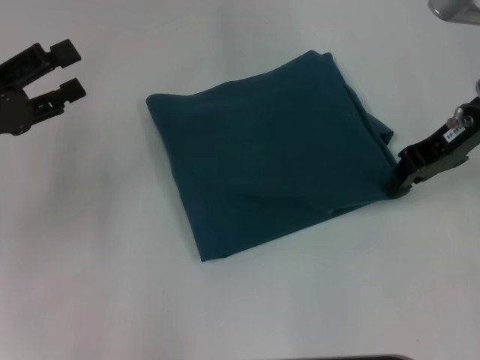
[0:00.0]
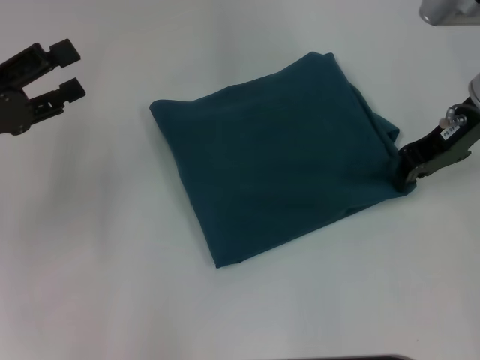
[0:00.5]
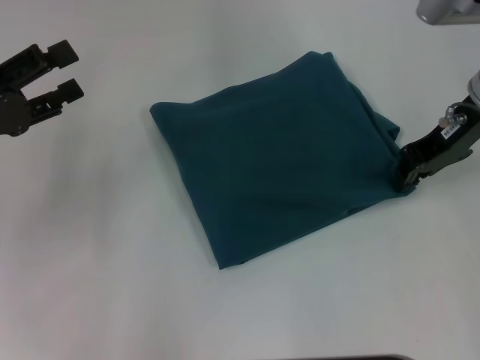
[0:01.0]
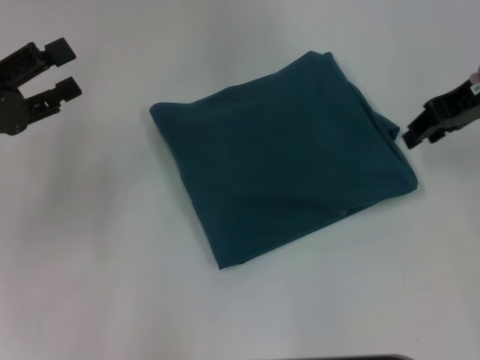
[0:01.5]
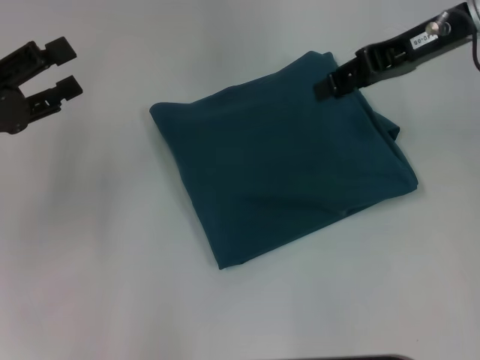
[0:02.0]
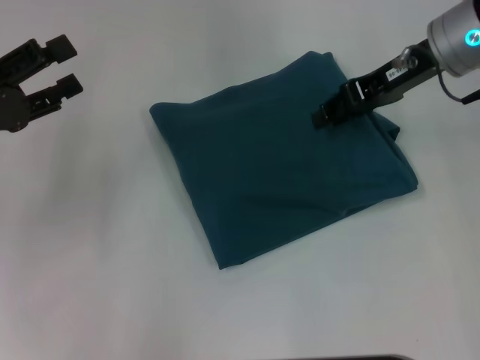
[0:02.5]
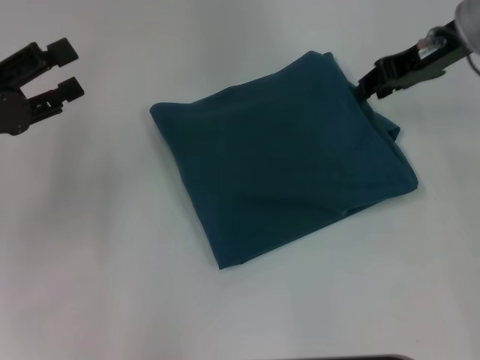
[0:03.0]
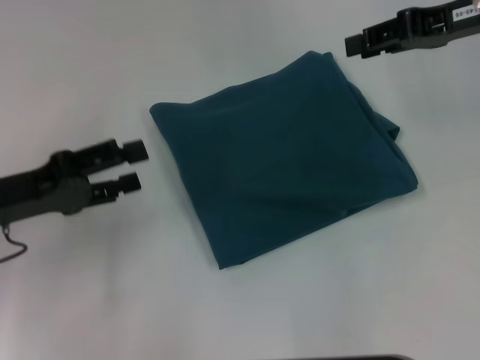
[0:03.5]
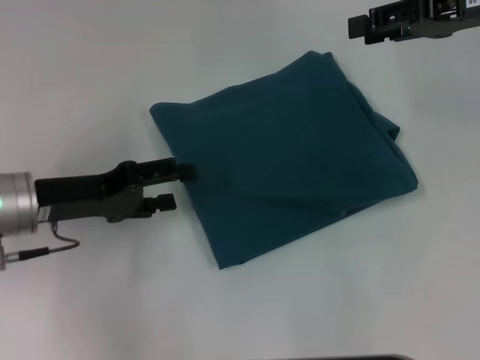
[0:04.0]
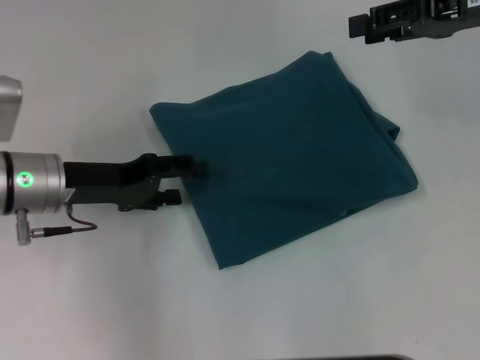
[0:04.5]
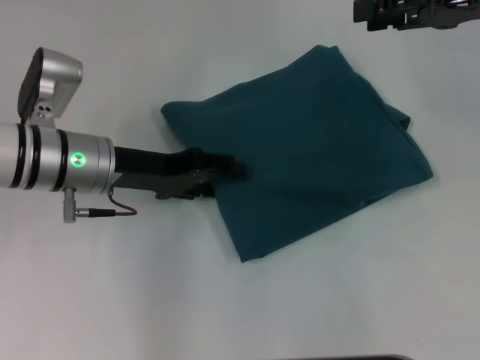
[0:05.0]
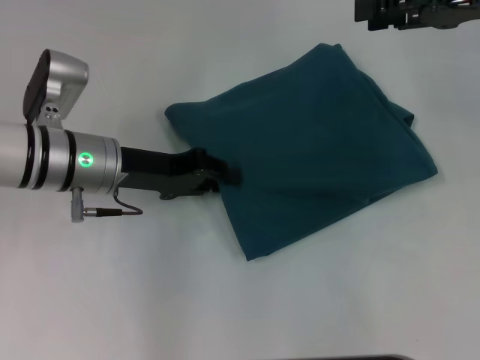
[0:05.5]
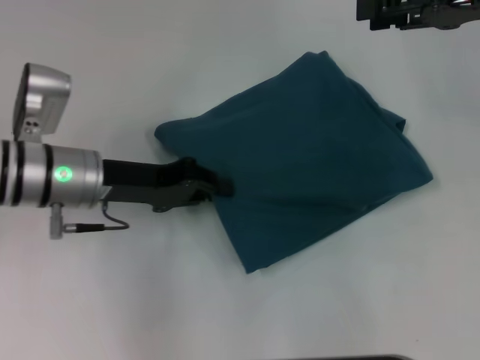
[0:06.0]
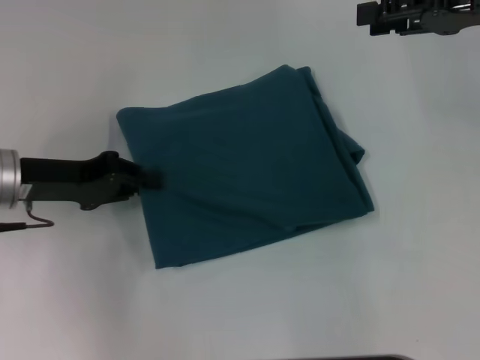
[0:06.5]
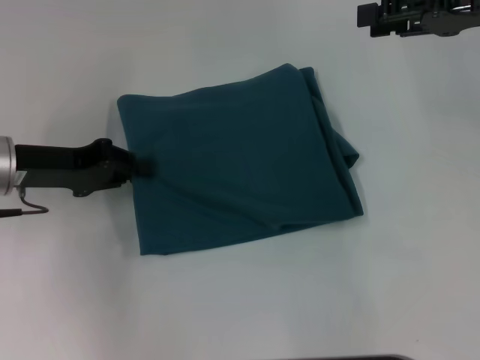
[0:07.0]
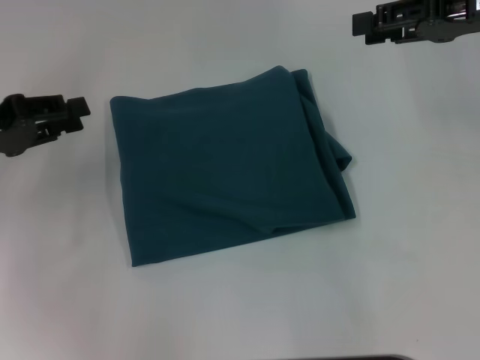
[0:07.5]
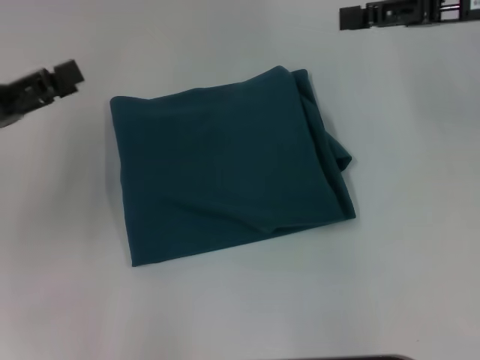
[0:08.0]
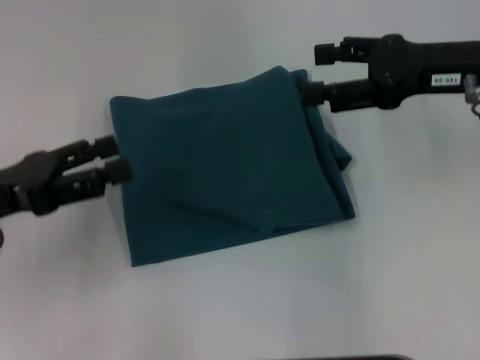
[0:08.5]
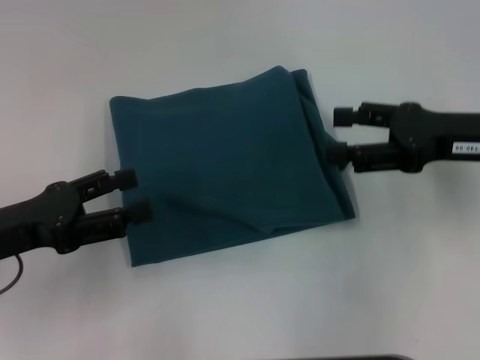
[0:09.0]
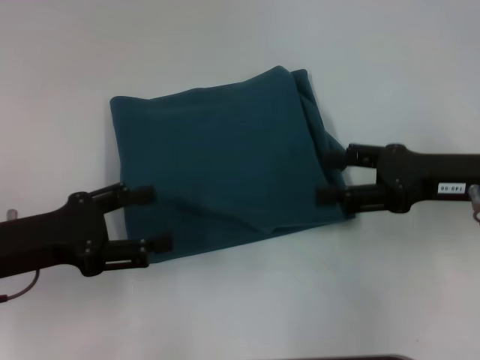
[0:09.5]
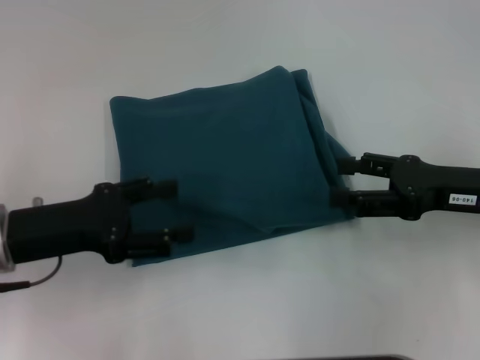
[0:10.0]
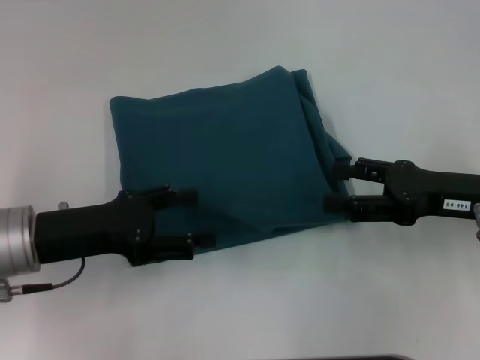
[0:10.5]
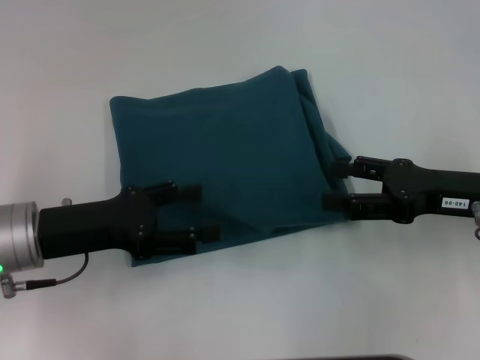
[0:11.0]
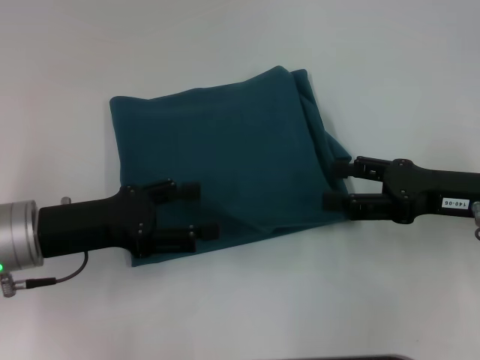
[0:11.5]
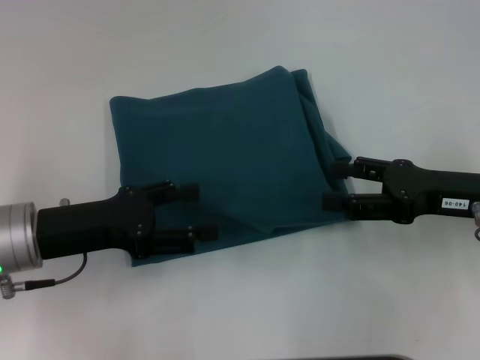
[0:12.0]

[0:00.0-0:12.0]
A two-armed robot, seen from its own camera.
0:00.0 to 0:02.0: The right gripper shifts some 5 cm upward.
0:02.0 to 0:04.0: Both grippers travel together to the right, roughly 5 cm.
0:04.0 to 0:06.0: The left gripper shifts roughly 5 cm to the right, and closes.
0:06.0 to 0:08.0: The left gripper heads to the left and upward, covering about 15 cm, and opens.
0:08.0 to 0:10.0: The right gripper travels downward and backward by approximately 15 cm, and opens its fingers; the left gripper travels to the right by about 5 cm.
0:10.0 to 0:12.0: The grippers move only a little.

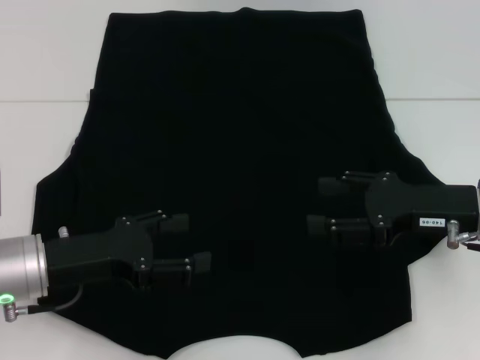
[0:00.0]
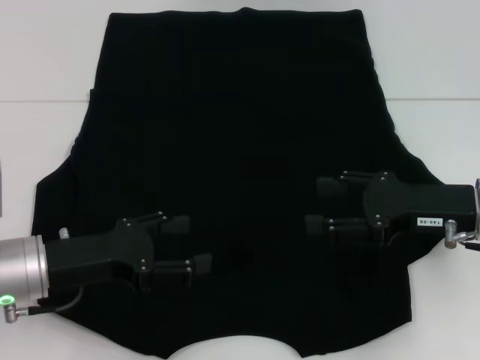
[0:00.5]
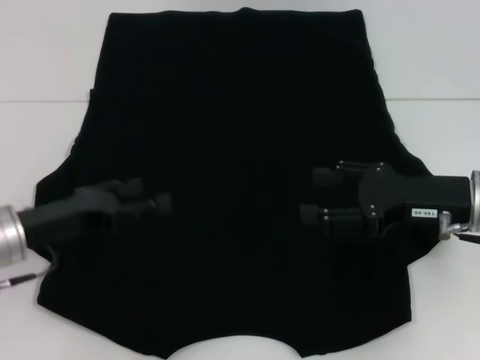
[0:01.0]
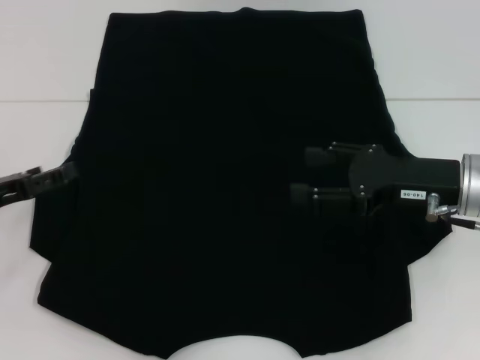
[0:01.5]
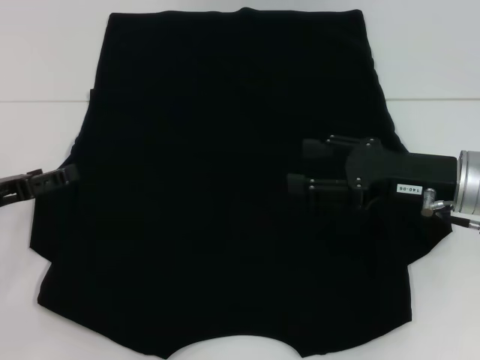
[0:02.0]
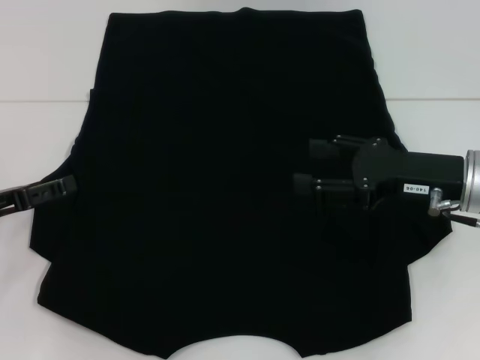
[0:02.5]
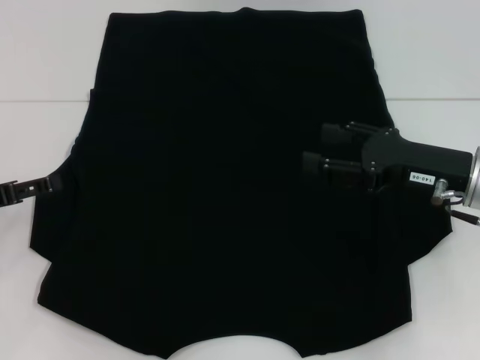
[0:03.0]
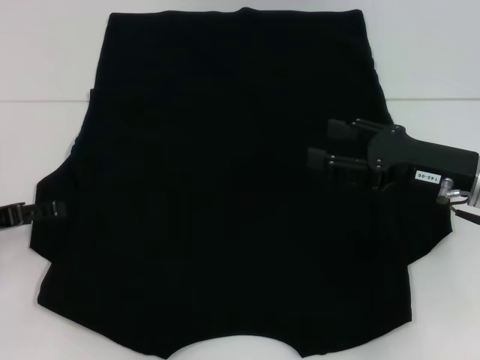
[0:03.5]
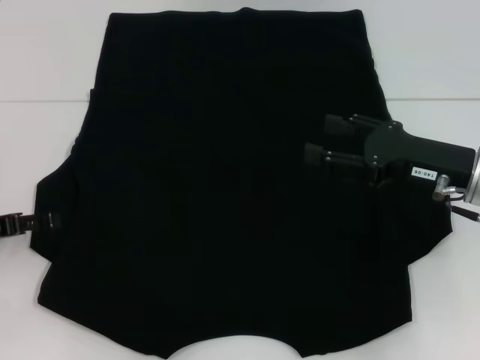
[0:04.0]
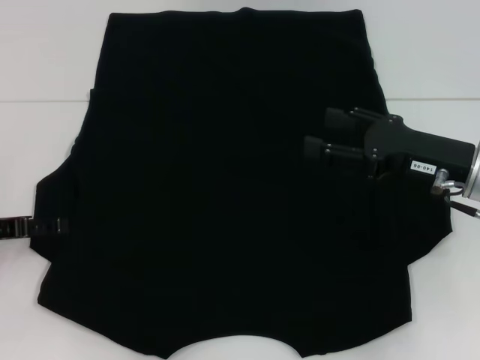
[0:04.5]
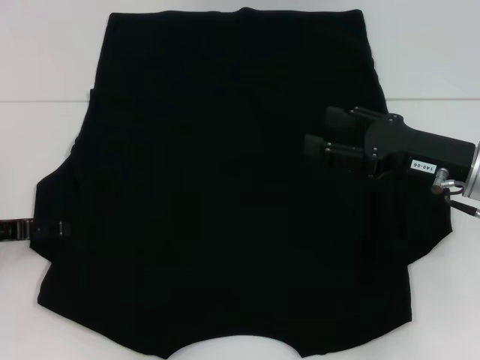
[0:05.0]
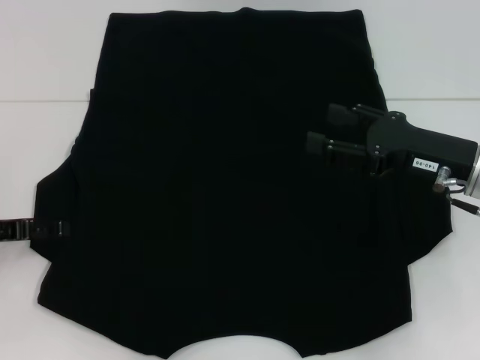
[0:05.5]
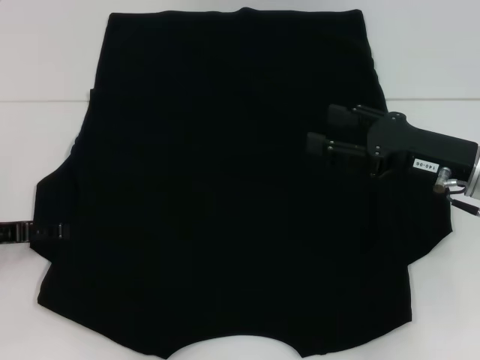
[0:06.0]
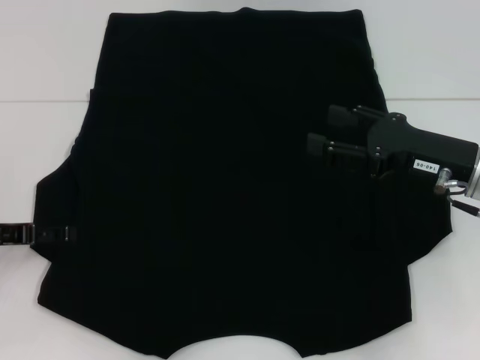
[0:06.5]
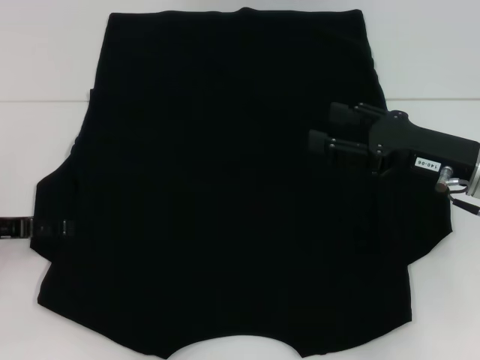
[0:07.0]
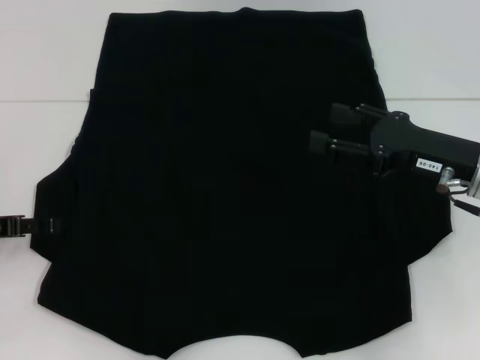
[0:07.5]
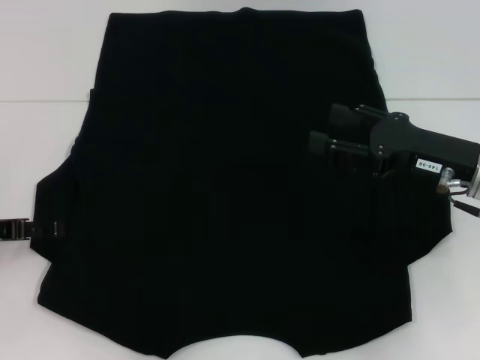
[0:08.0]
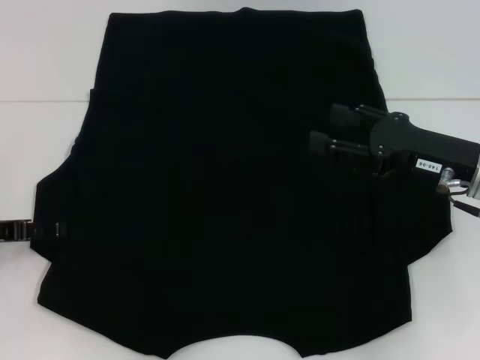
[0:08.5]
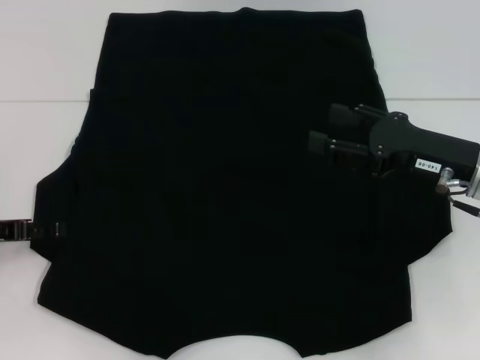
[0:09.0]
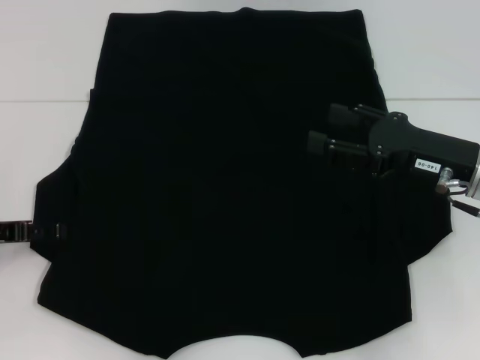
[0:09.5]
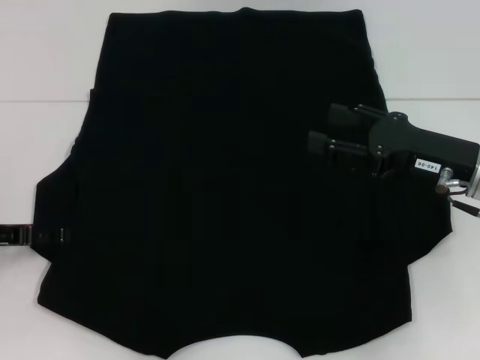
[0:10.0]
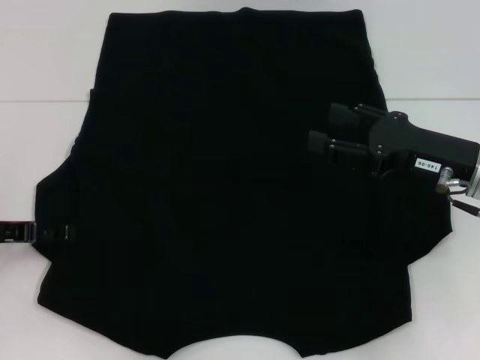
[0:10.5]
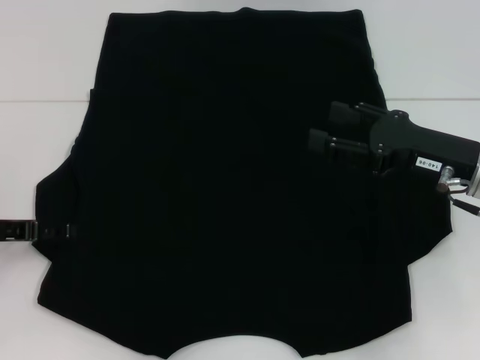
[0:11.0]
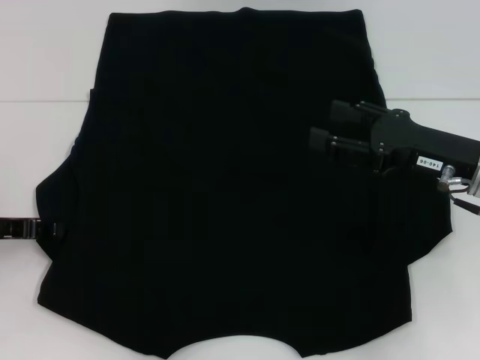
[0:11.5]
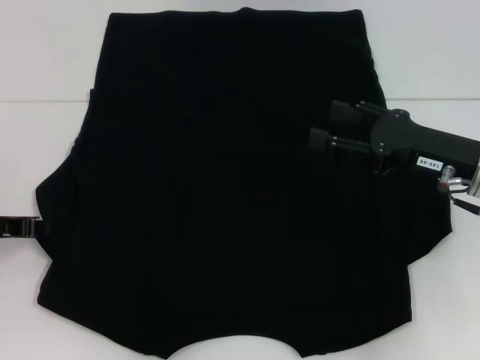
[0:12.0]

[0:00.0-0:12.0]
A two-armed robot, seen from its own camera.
0:00.0 to 0:02.0: The left gripper shifts approximately 10 cm to the left.
0:02.0 to 0:04.0: The grippers move only a little.
0:04.0 to 0:06.0: The grippers make only small movements.
0:06.0 to 0:10.0: Both grippers stay about where they are.
0:10.0 to 0:12.0: The left gripper closes its fingers.

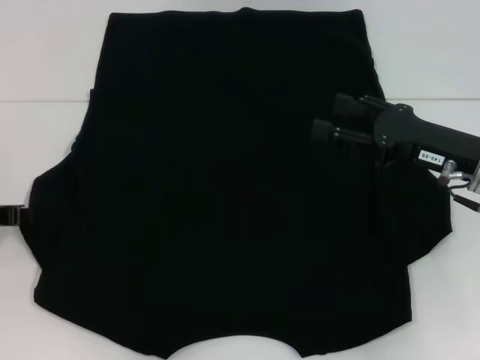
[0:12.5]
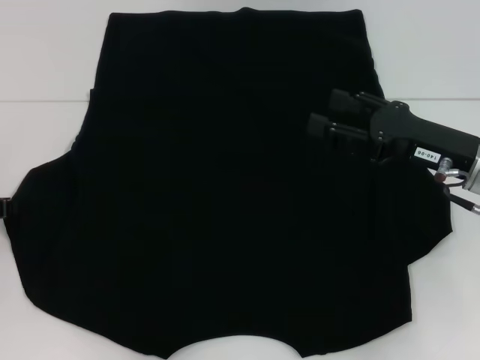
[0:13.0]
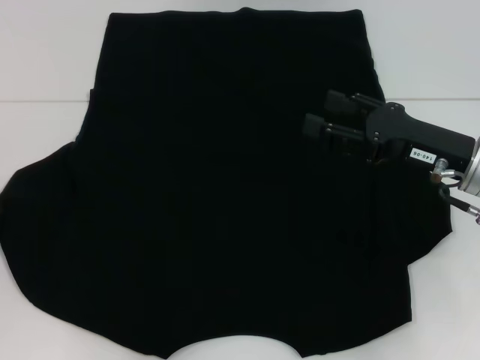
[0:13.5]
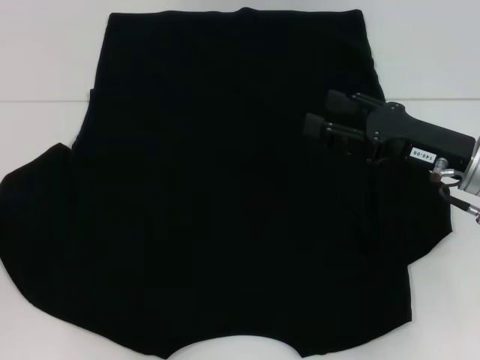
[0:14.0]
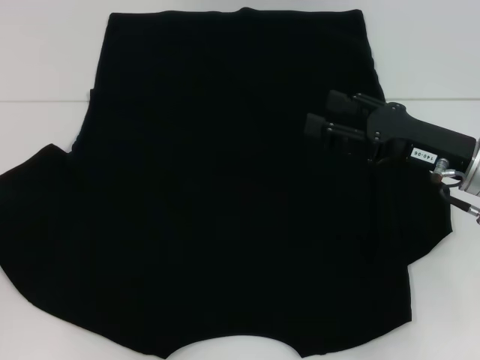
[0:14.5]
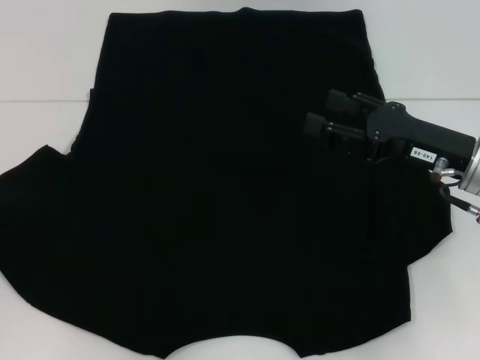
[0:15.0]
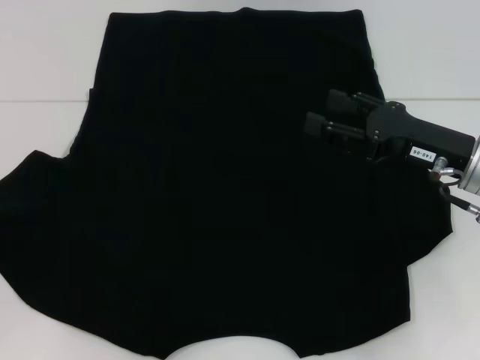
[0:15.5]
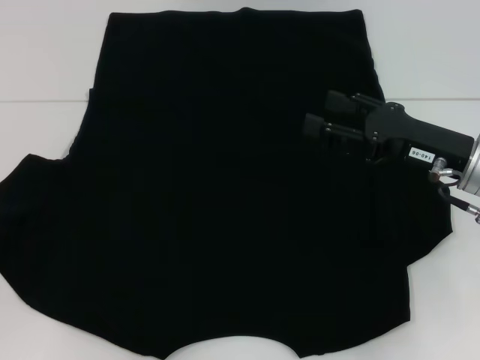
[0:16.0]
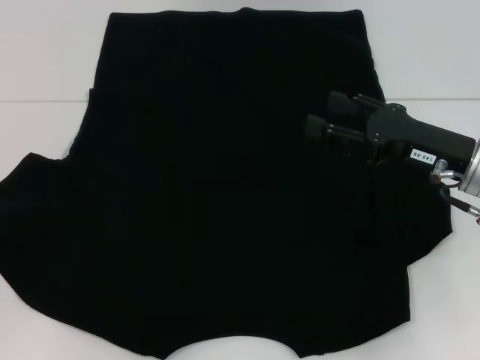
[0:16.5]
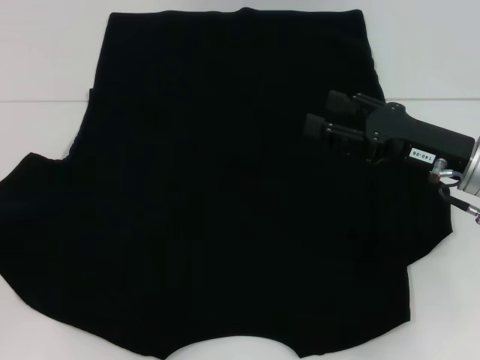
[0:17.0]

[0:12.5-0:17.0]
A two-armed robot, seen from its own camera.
0:12.5 to 0:17.0: There are only small adjustments of the grippers.
